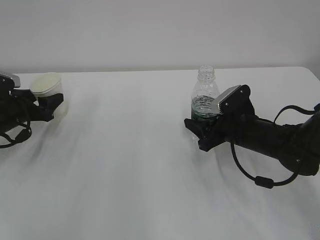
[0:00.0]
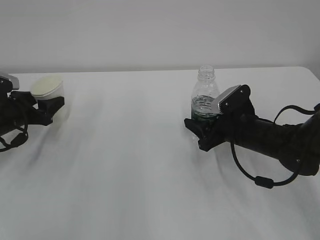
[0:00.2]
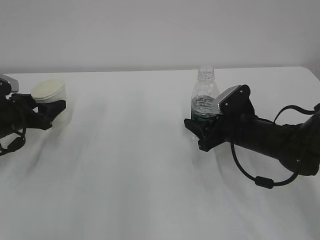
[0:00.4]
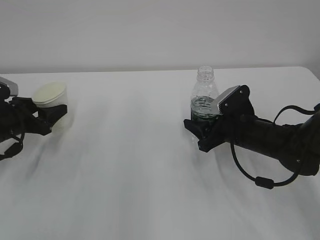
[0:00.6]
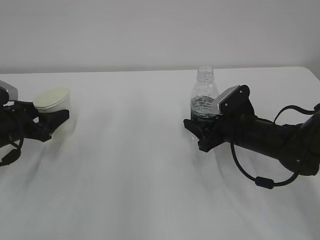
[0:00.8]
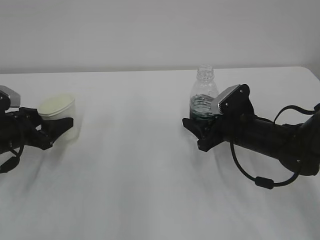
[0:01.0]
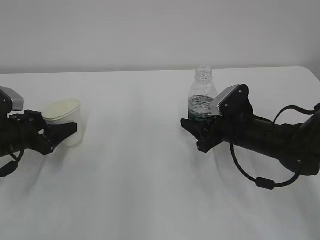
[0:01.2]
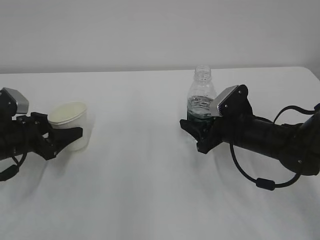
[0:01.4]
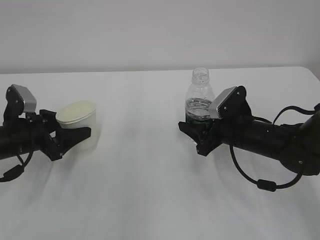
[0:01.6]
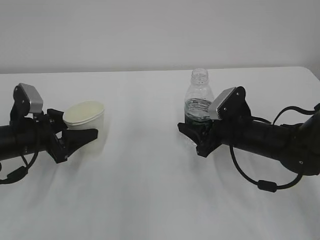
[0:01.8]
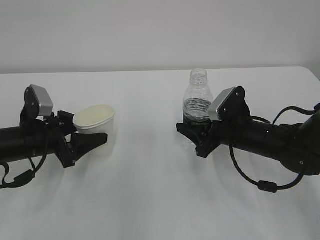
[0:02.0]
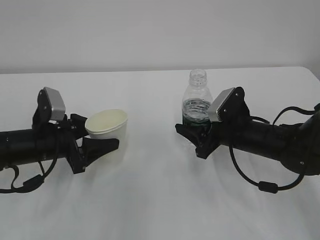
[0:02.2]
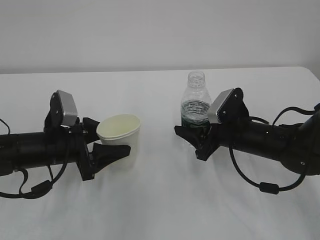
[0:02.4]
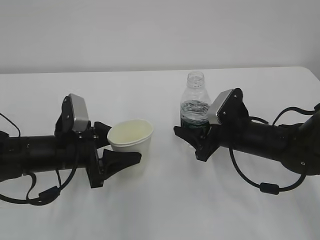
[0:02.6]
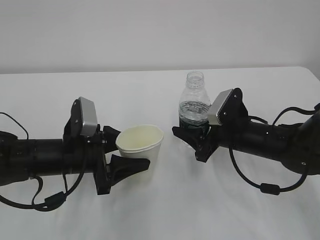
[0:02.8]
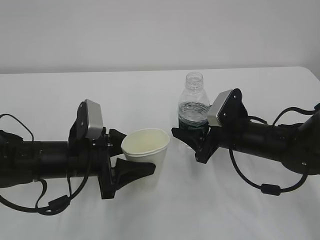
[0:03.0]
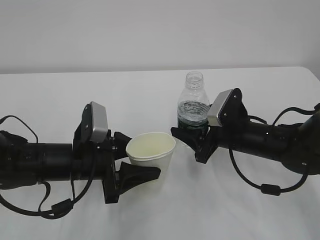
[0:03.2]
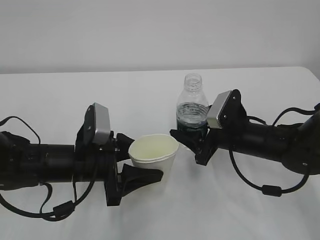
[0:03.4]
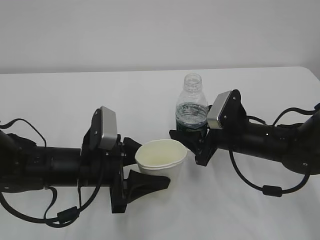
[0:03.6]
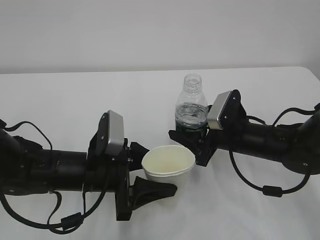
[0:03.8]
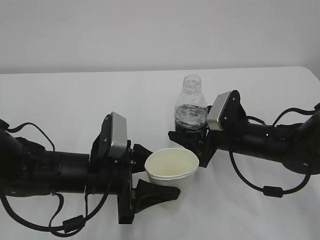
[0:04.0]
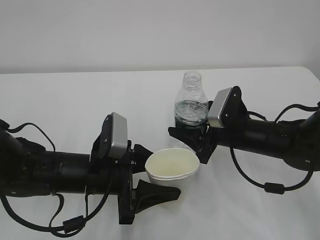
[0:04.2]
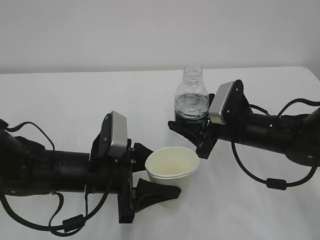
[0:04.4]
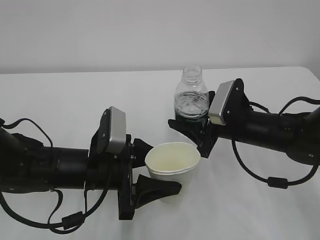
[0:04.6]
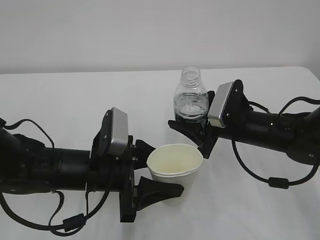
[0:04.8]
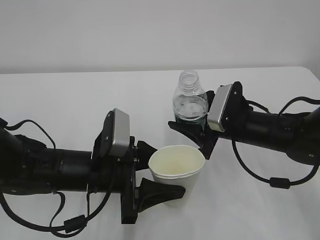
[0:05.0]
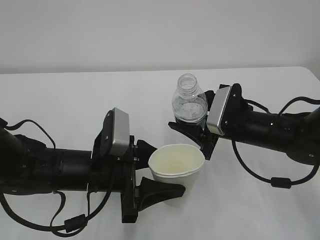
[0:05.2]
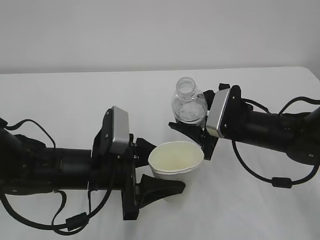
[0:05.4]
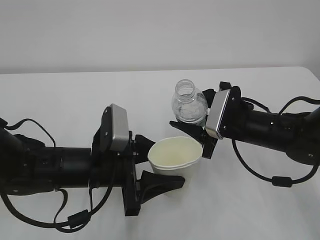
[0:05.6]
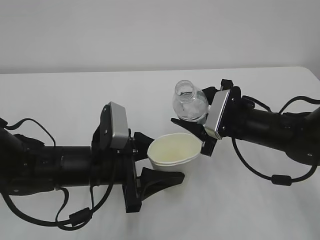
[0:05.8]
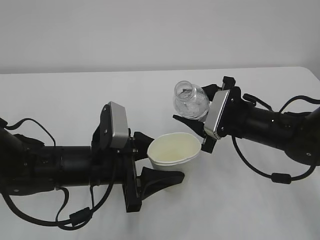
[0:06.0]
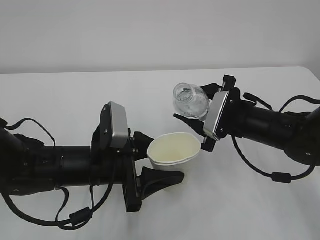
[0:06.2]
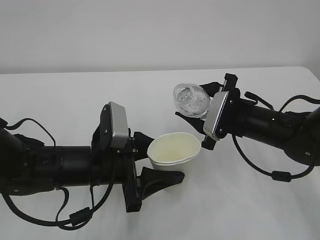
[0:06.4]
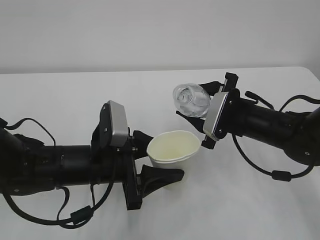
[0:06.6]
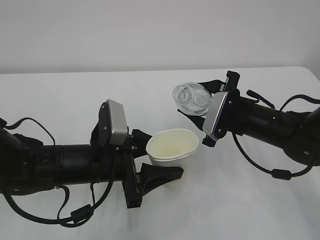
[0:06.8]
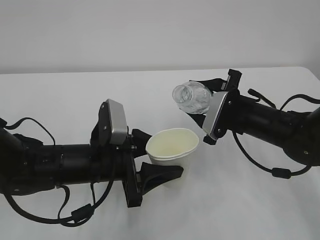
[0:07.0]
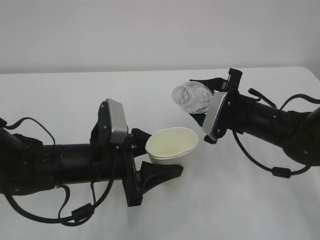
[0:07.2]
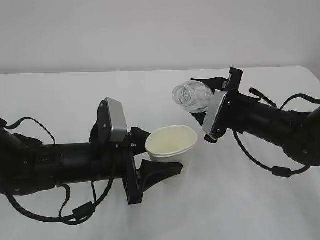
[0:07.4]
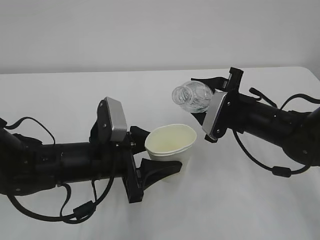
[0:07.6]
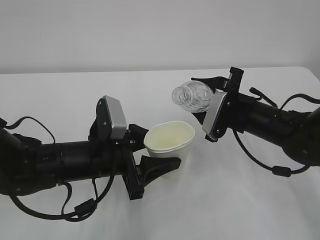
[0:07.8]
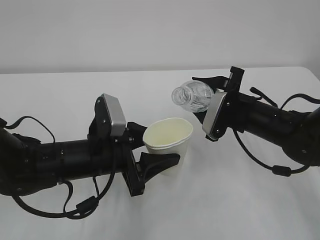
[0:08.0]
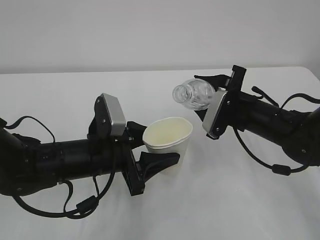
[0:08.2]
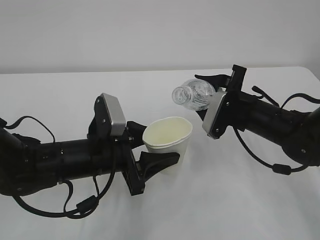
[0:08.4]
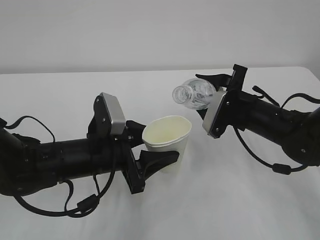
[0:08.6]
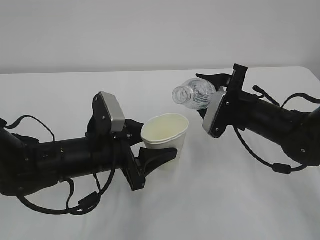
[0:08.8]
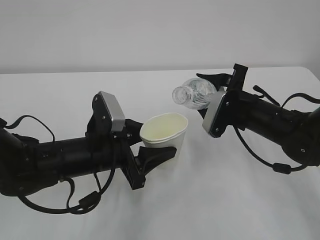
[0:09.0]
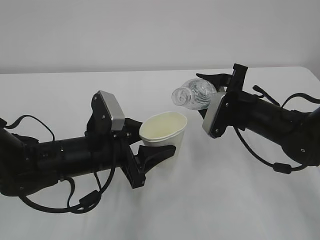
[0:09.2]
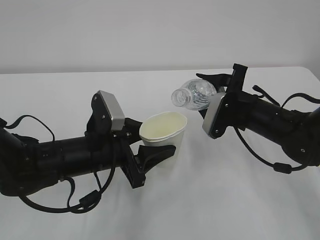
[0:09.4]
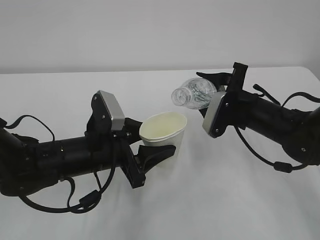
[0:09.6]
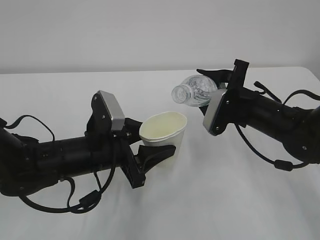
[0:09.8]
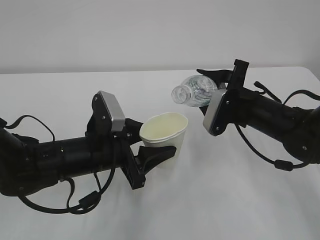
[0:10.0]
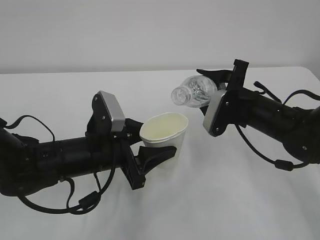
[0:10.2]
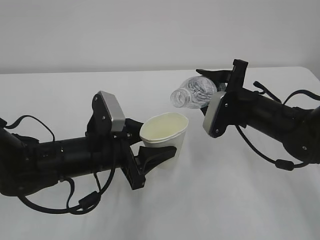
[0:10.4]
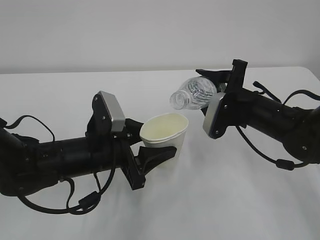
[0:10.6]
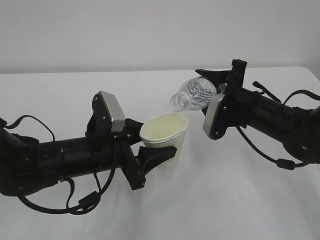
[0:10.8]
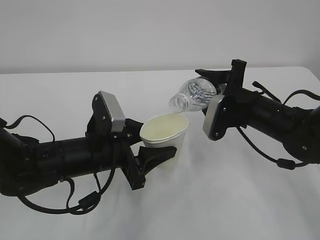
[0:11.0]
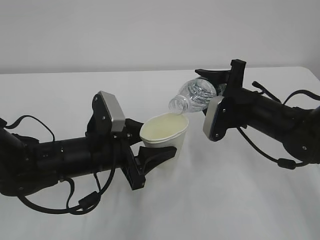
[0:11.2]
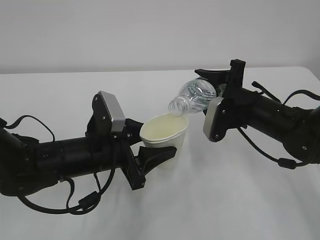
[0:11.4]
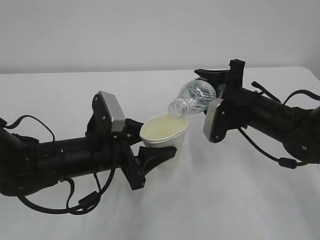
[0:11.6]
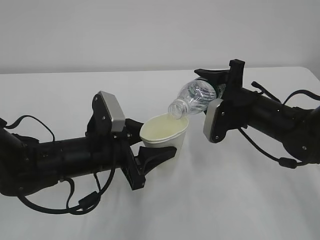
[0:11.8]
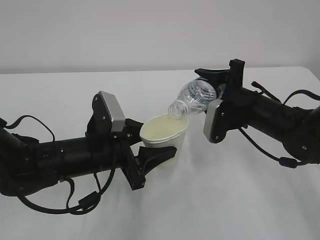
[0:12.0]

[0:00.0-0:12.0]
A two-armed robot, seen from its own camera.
0:00.0 to 0:01.6: The left gripper travels backward and to the right by about 10 cm.
0:01.6 to 0:03.0: The left gripper travels to the right by about 10 cm.
0:06.0 to 0:07.6: There are only small adjustments of the grippers.
0:07.6 to 0:10.4: The grippers make only small movements.
0:10.4 to 0:12.0: The grippers move only a little.

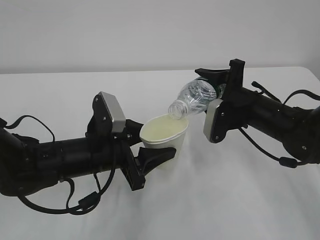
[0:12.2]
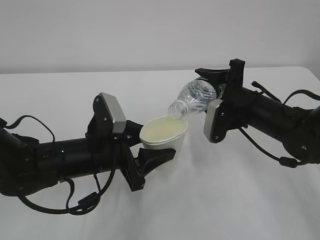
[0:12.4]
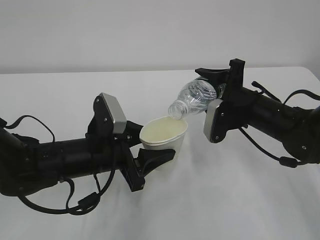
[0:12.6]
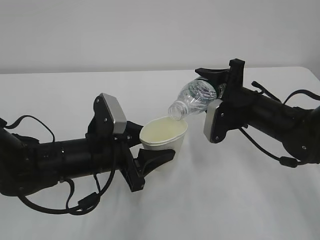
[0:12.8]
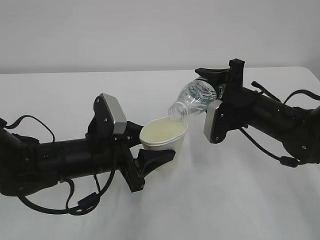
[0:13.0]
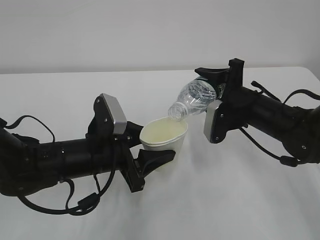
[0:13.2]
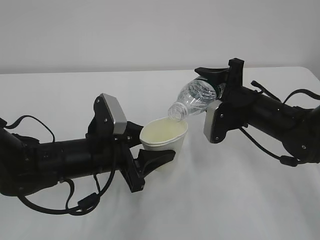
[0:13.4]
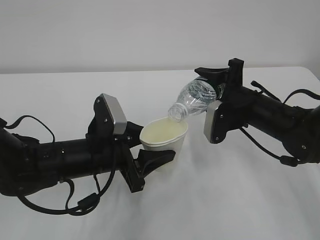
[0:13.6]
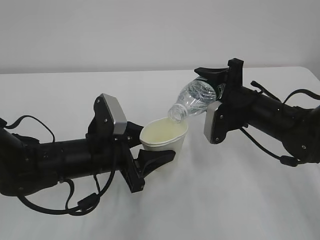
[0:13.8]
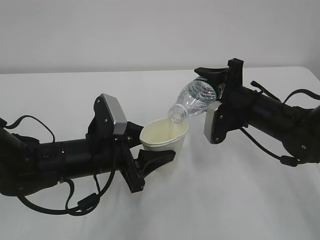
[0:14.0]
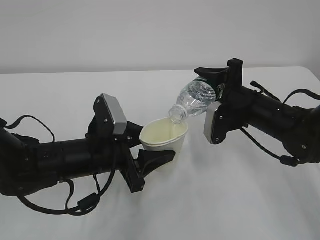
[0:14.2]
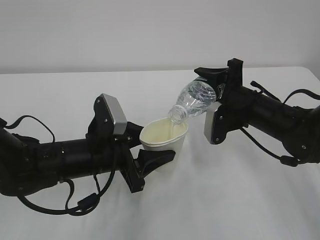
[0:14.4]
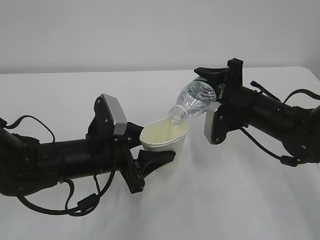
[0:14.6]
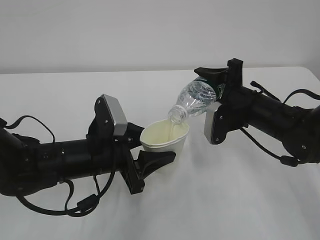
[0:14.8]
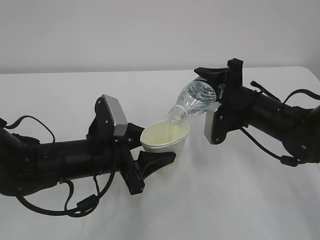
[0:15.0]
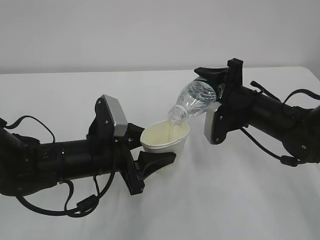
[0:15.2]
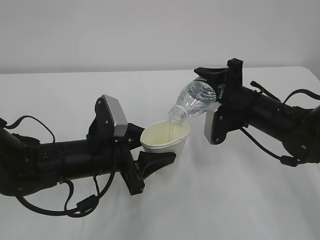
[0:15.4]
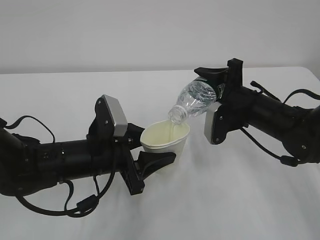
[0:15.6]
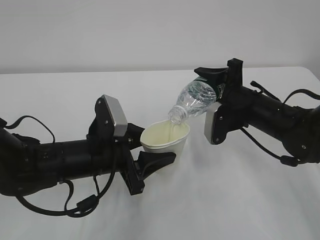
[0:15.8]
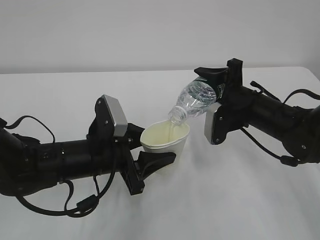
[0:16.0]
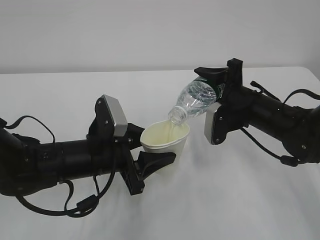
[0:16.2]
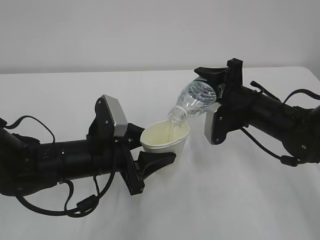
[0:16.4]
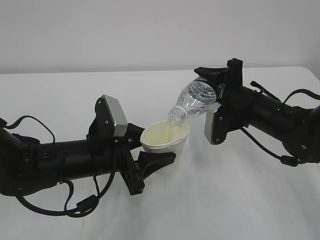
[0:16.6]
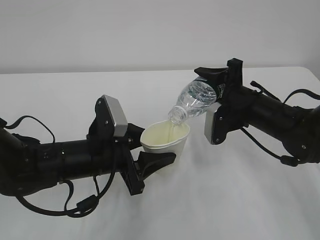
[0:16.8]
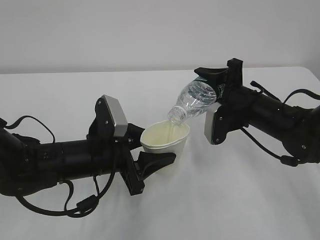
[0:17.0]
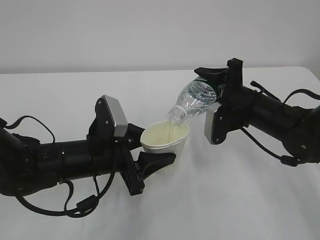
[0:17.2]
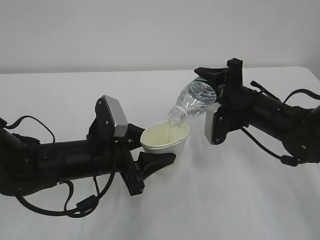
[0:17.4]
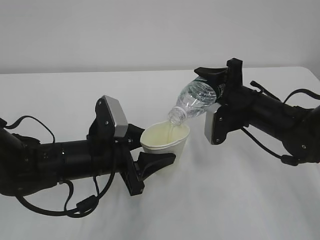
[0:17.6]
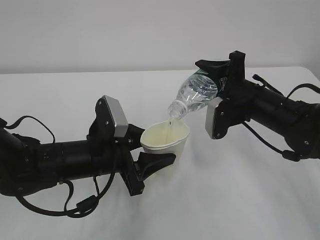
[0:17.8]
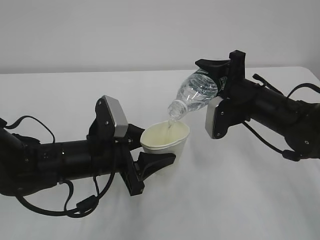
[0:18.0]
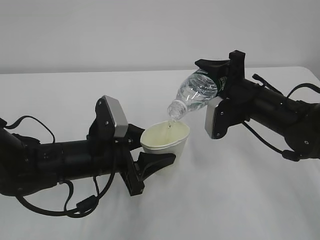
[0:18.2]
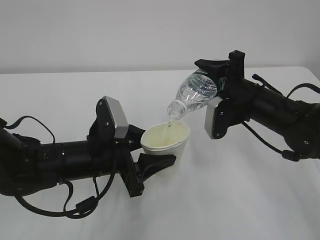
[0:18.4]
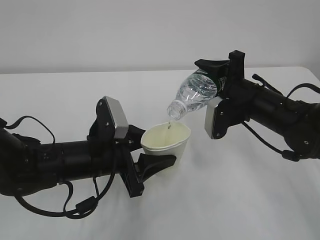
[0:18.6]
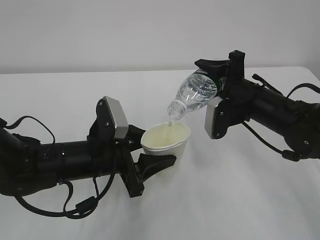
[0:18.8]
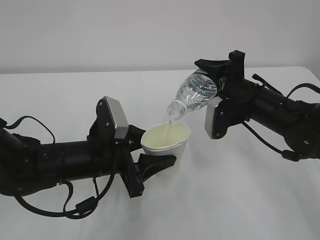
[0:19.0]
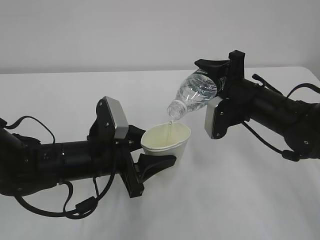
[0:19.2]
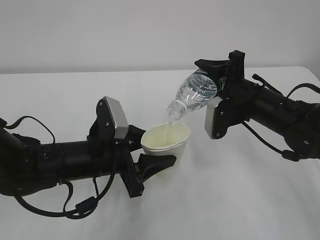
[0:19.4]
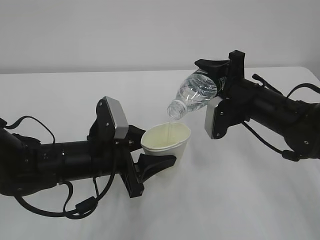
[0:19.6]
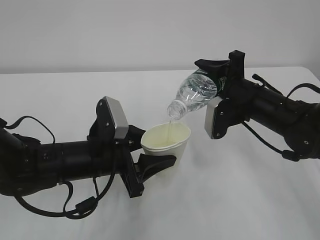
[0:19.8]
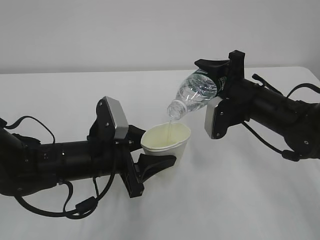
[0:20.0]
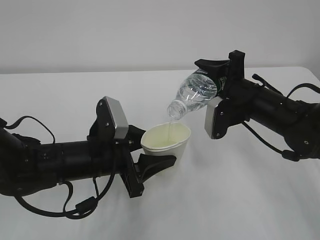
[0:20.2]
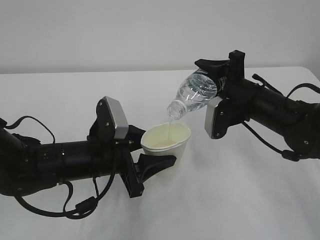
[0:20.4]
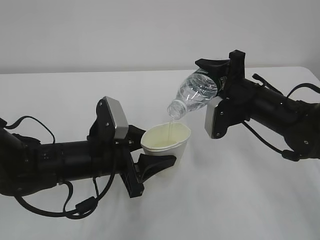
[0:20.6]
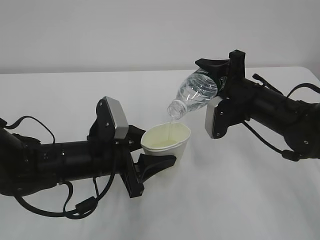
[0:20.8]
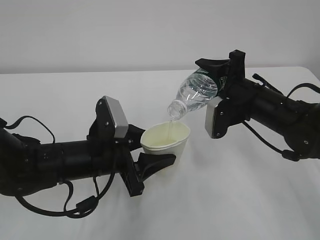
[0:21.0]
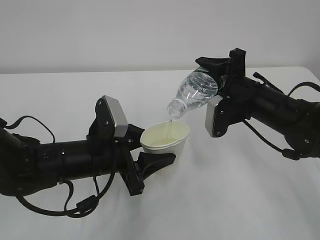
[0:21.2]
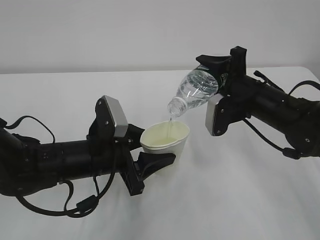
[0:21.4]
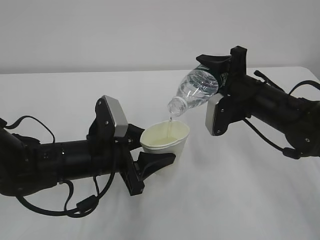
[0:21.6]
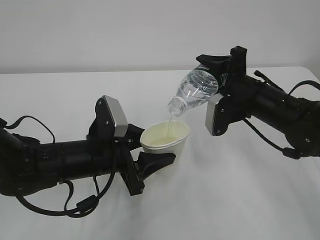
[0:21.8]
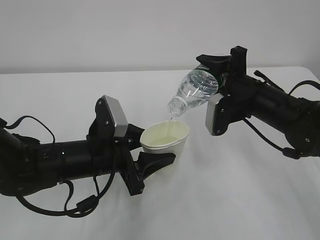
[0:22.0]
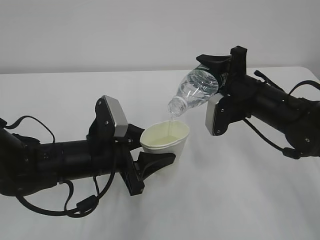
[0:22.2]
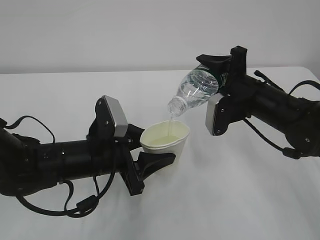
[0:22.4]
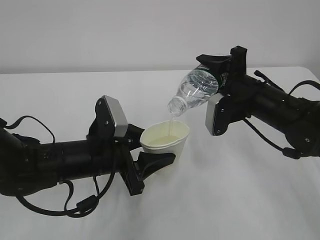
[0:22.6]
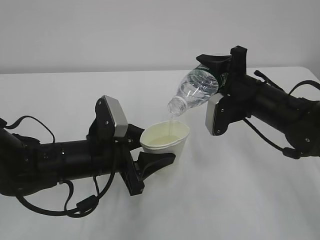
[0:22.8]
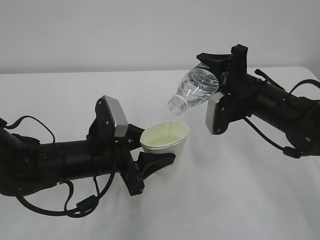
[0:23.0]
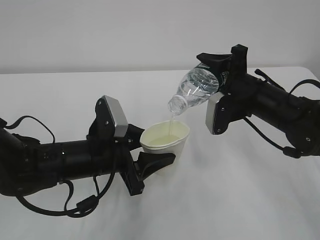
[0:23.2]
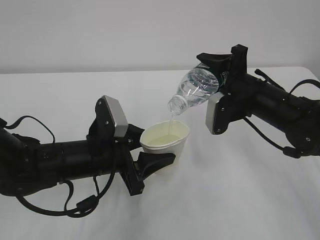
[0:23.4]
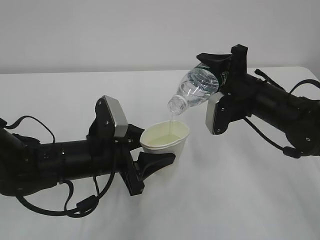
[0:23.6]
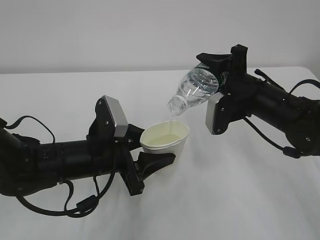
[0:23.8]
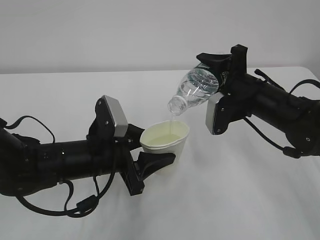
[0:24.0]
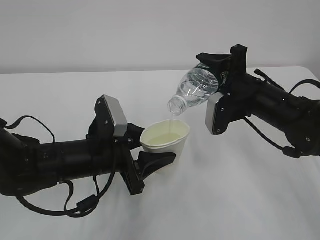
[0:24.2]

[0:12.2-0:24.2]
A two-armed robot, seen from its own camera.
0:12.2 to 0:13.8: Neither gripper changes place.
0:13.8 to 0:16.6: Both grippers stay about where they are.
0:16.6 to 0:19.8: Neither gripper changes place.
0:19.8 to 0:24.2: Neither gripper changes place.
